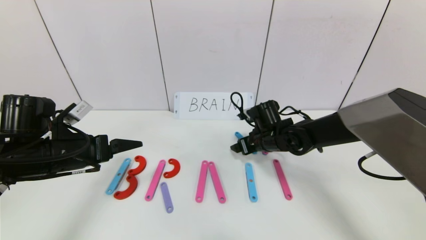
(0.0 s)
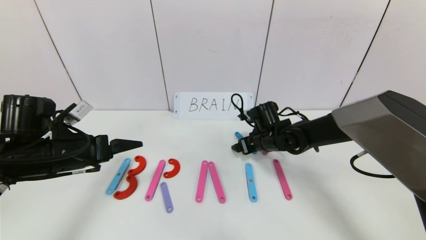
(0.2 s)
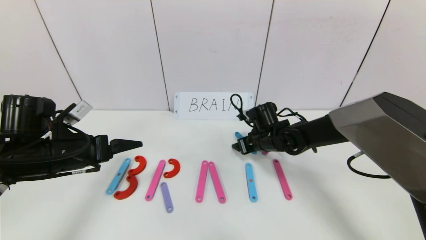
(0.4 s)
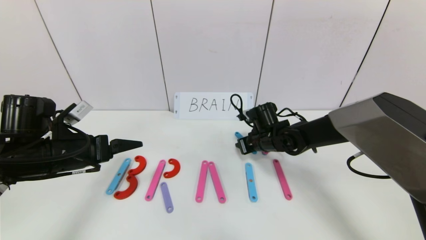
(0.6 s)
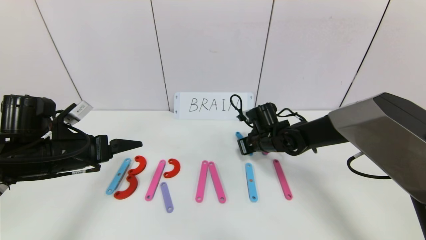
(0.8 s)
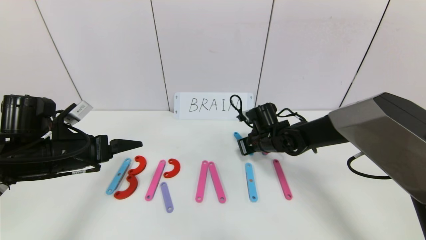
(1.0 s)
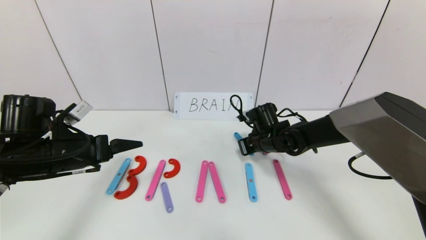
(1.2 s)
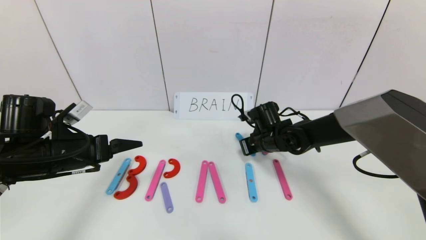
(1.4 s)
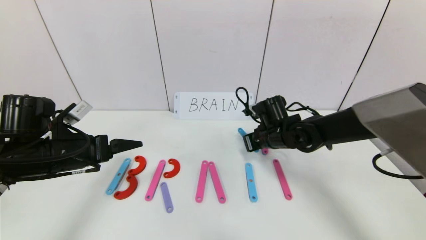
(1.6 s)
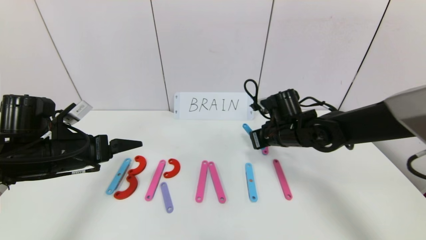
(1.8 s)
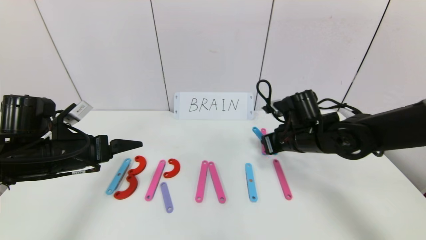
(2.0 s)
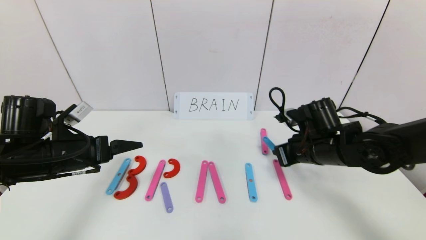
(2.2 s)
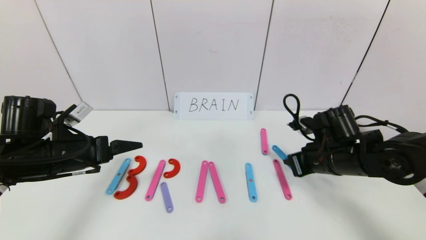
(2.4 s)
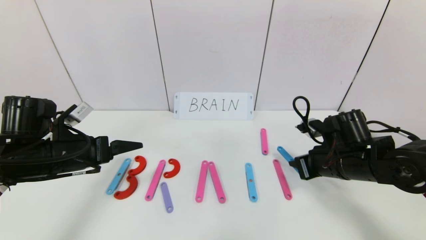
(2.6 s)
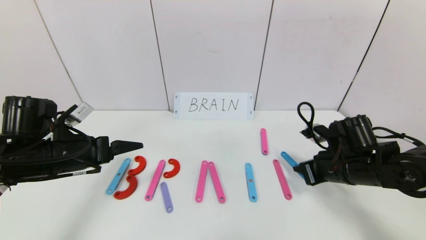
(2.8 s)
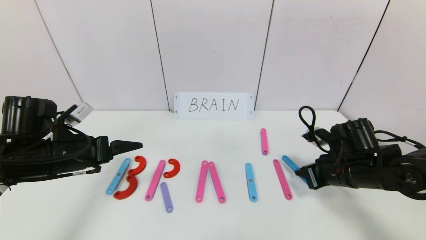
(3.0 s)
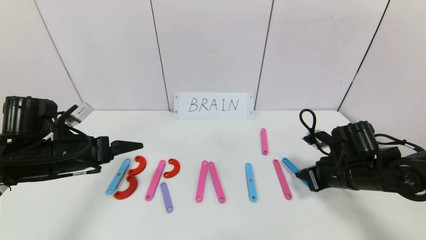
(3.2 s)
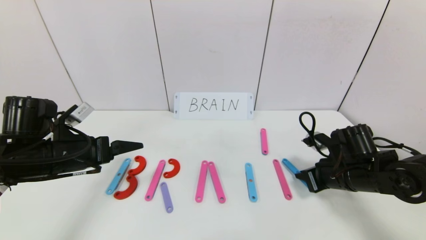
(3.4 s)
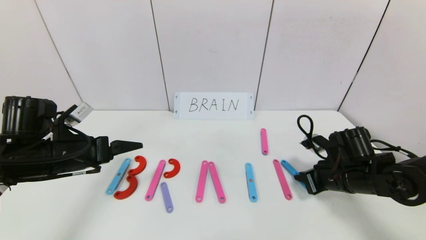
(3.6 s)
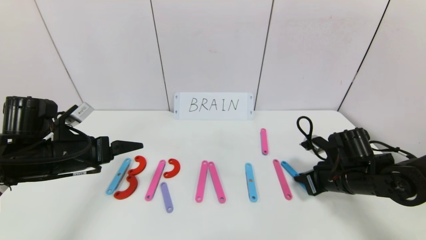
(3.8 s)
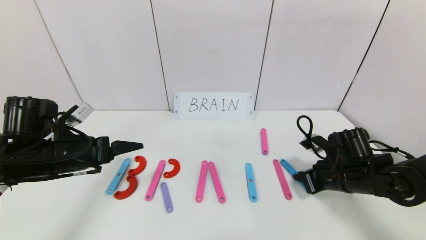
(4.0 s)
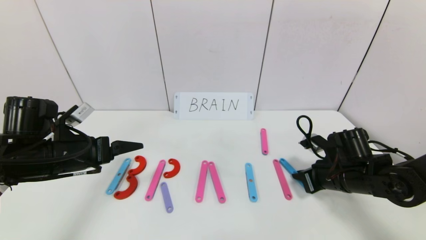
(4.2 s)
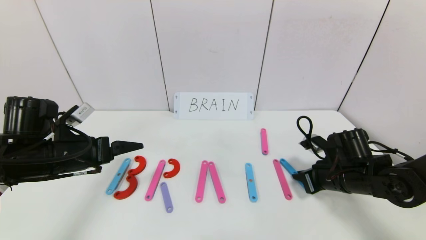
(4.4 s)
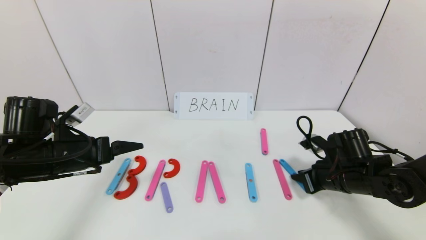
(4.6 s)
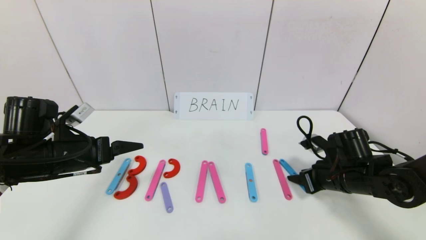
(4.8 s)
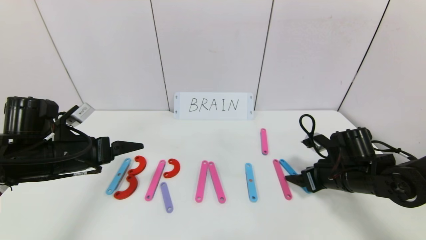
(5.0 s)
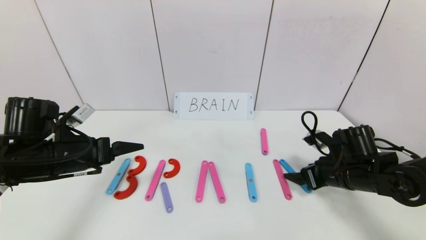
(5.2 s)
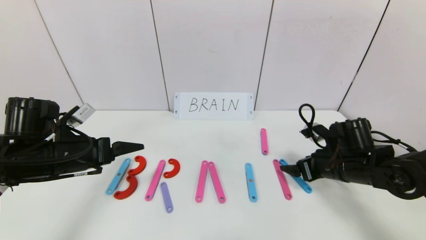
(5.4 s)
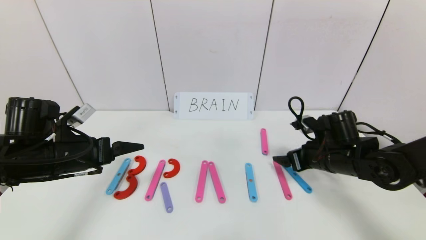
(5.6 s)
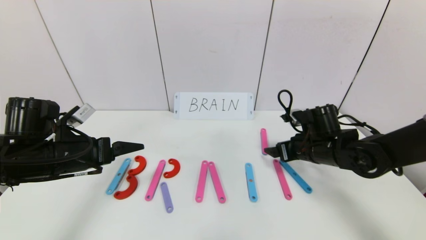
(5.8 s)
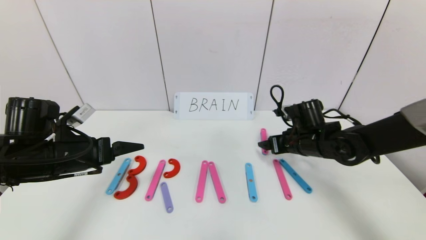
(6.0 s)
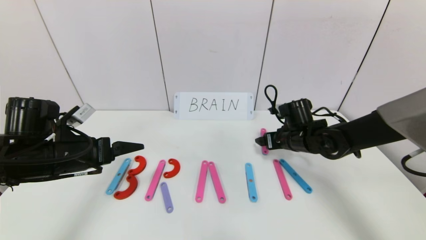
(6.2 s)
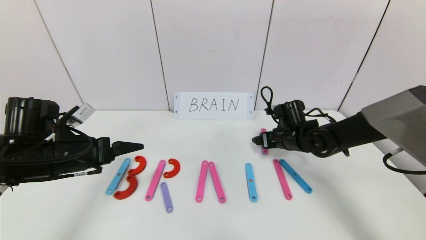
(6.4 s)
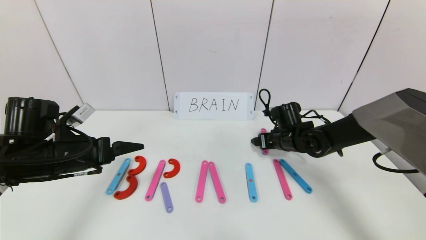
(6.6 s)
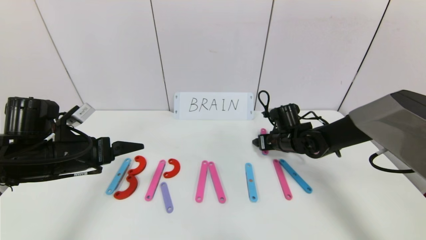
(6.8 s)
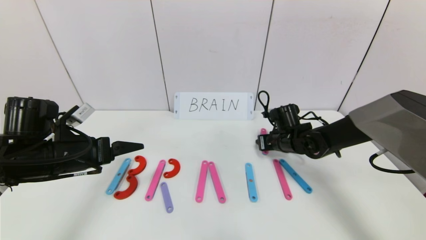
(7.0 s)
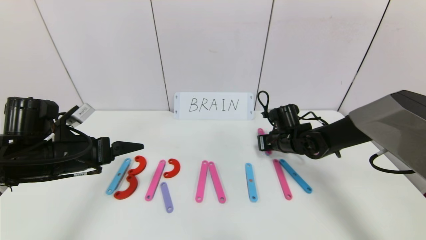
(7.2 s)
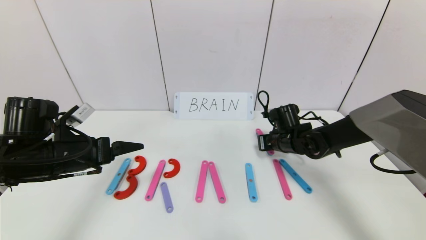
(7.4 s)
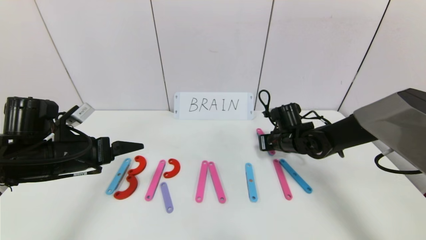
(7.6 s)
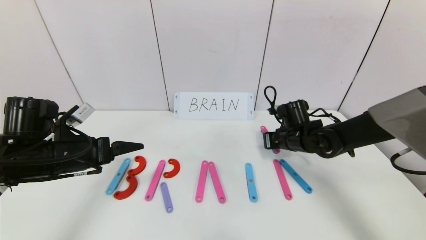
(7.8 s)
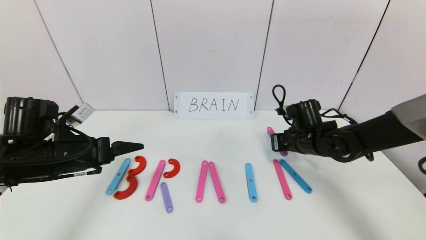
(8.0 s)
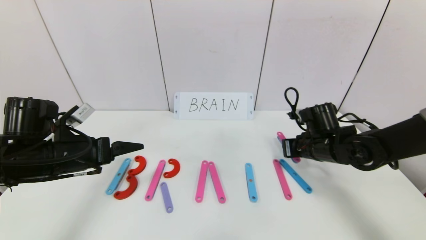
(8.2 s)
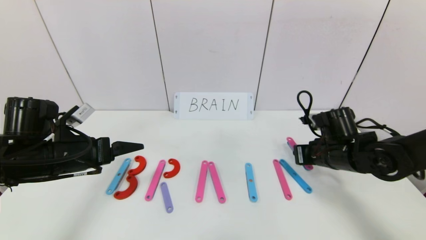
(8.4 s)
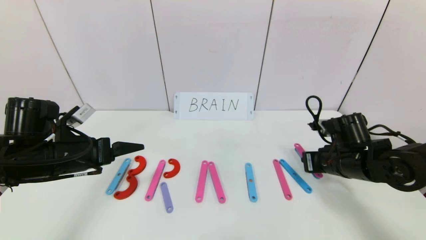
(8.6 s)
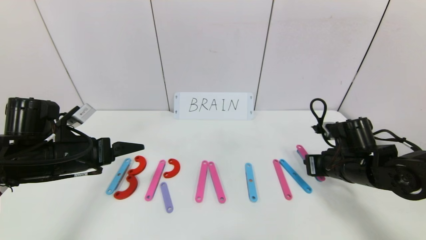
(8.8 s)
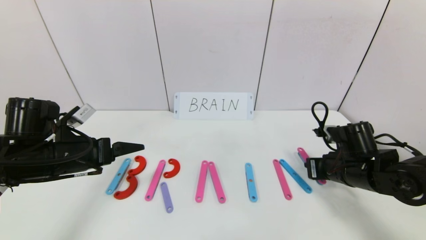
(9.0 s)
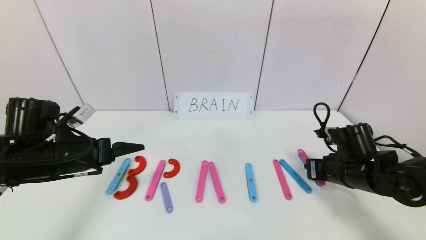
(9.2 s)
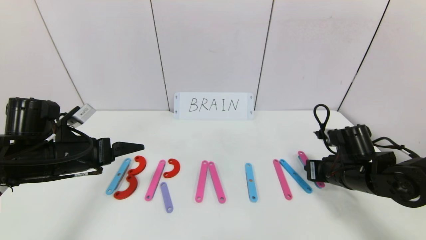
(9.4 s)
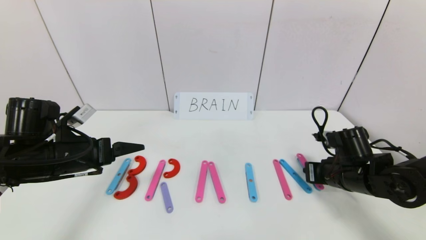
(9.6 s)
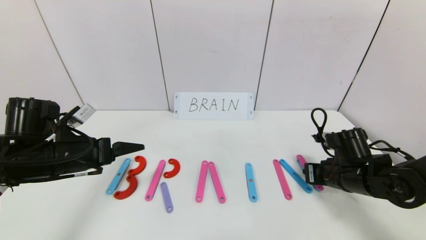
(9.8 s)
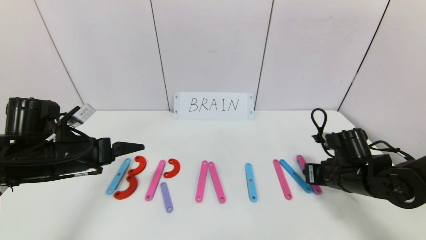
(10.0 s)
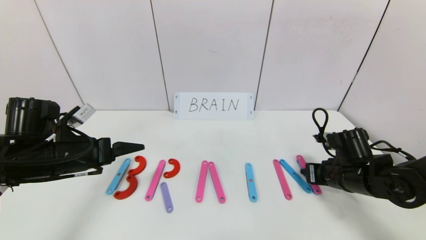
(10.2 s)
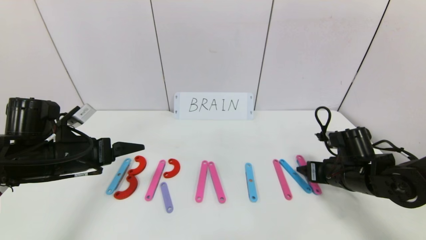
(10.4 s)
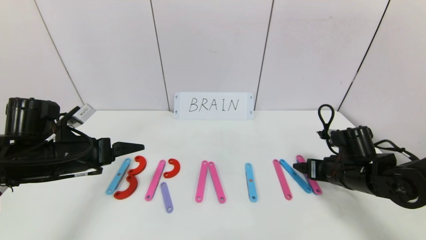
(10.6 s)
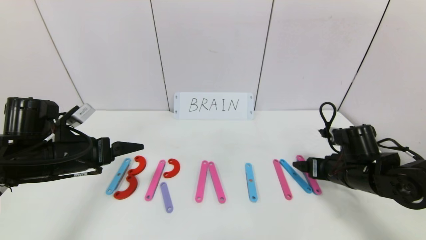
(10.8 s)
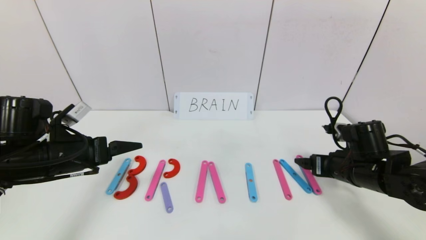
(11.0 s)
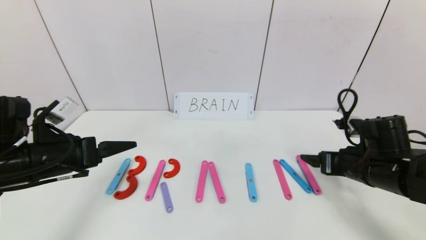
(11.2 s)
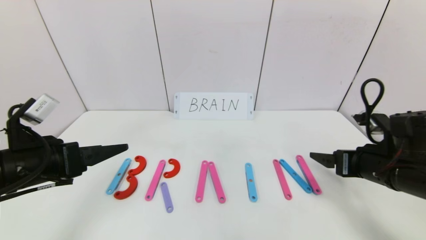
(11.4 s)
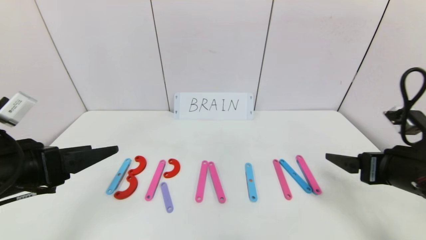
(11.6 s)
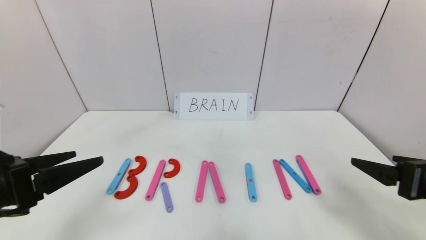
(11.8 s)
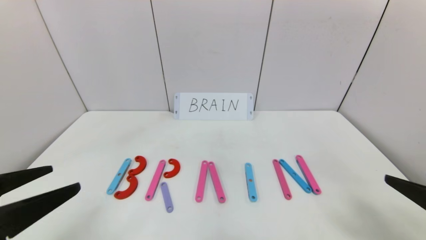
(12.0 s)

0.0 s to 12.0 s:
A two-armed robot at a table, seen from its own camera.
Task of the whole recording: rearrange the word baai as brain.
Step, 0.0 to 10.8 s: Place the character N after character I.
0.0 to 1.6 s: The right gripper closes.
1.6 to 3.0 s: The right gripper moves to the right and backward, some 15 cm.
3.0 to 4.4 s: The grippers stay close to where they were, moving slightly.
4.4 to 6.0 s: The right gripper heads forward and to the left, covering roughly 10 cm, and opens.
6.0 to 7.6 s: The right gripper shifts by approximately 5 cm, and closes up.
7.6 to 9.0 s: The right gripper travels backward and to the right by approximately 15 cm.
9.0 to 10.4 s: The right gripper opens up.
10.4 to 12.0 s: The right gripper moves backward and upward, some 25 cm, while the left gripper moves backward, approximately 15 cm.

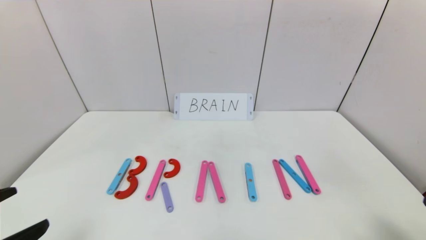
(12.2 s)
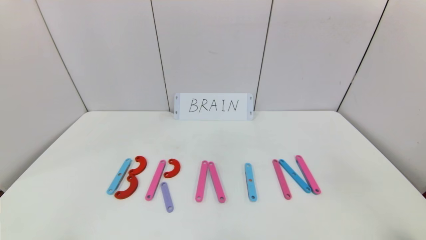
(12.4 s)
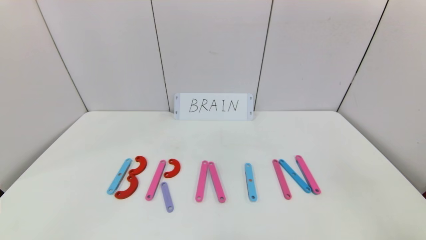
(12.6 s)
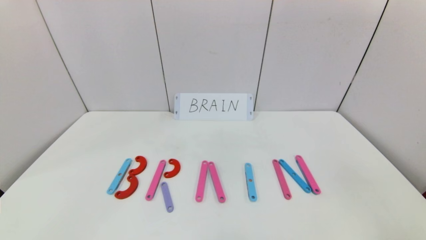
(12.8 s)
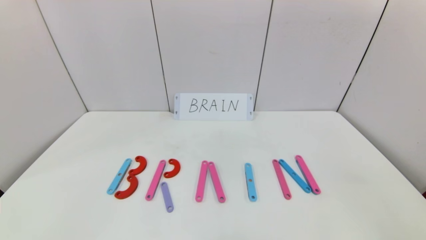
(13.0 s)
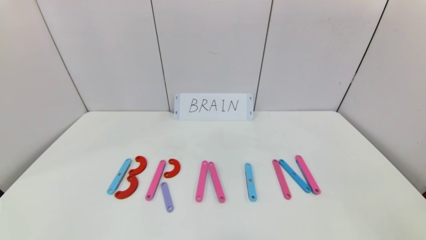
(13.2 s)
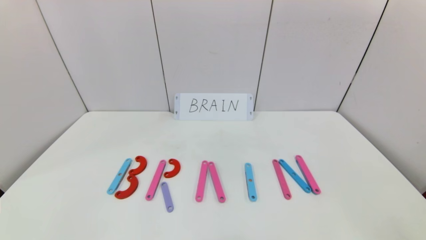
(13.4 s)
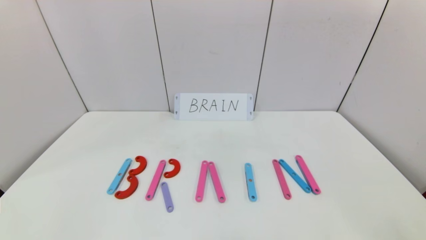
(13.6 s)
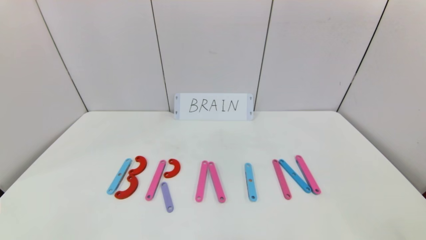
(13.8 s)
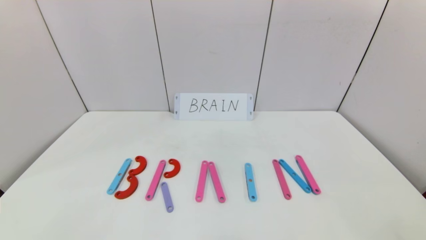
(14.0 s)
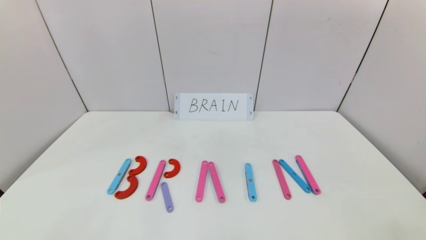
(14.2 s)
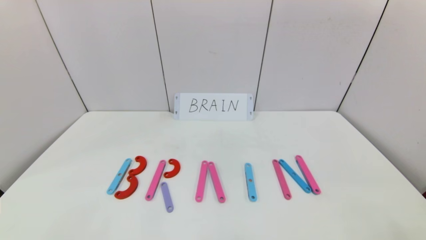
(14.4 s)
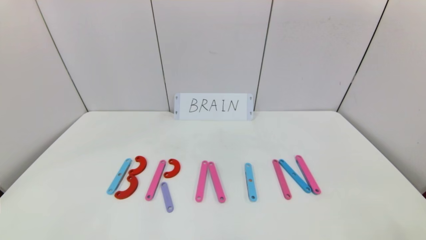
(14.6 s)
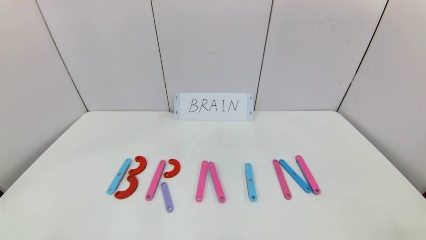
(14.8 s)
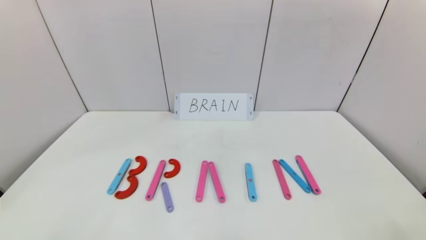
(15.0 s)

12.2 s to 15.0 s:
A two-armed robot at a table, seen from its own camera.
Task of the whole recording: rearrange the word baai as brain.
12.2 to 13.6 s: The left gripper moves backward and downward, roughly 10 cm.
